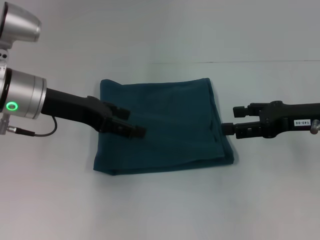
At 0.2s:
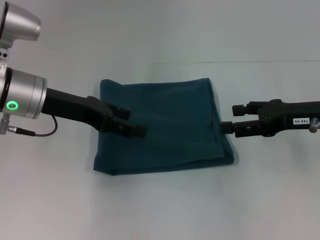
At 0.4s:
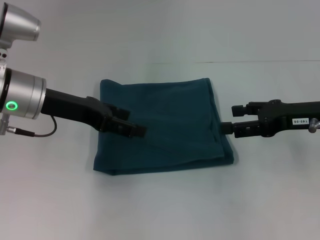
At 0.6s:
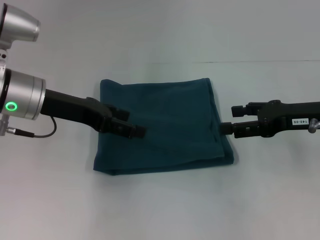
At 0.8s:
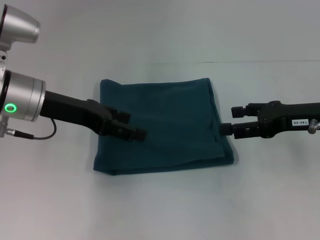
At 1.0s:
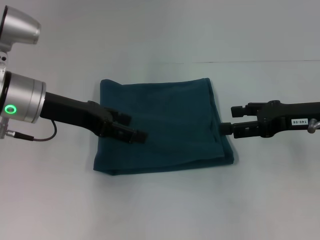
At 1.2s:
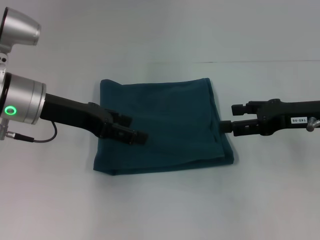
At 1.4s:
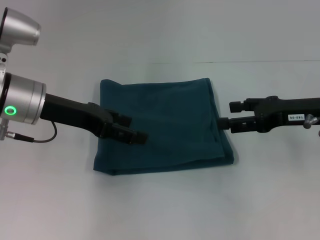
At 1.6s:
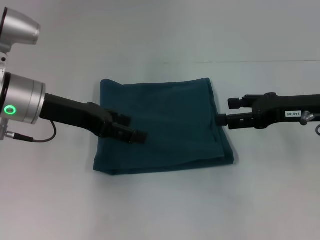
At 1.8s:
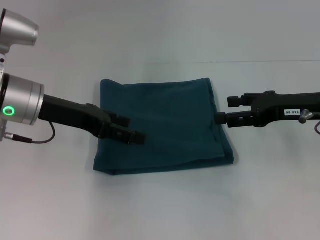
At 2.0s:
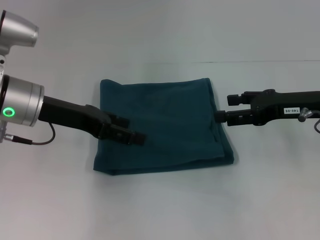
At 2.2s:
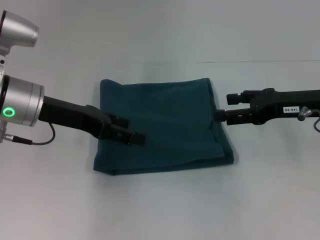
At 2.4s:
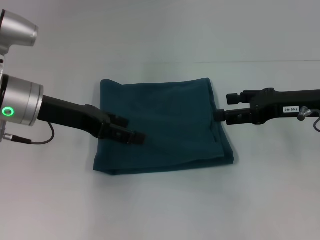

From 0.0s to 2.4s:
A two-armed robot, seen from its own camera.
From 0.0s to 1.2s: The two grippers keep their place.
From 1.2s to 2.4s: The grippers make only small movements.

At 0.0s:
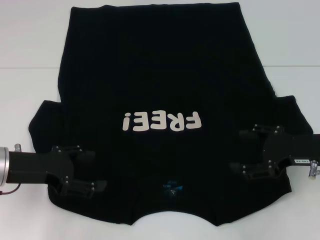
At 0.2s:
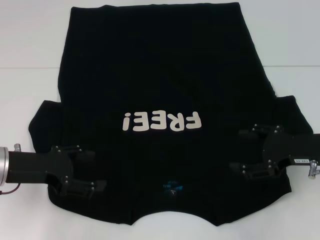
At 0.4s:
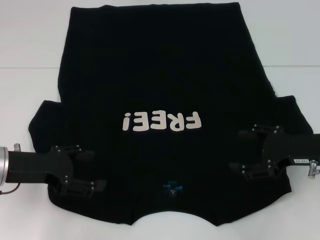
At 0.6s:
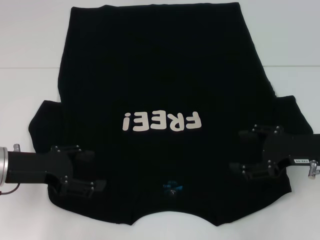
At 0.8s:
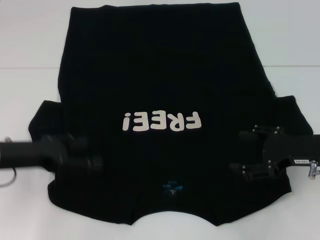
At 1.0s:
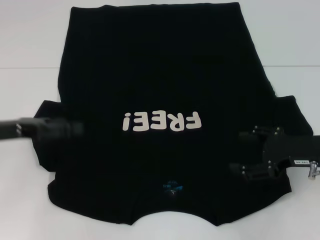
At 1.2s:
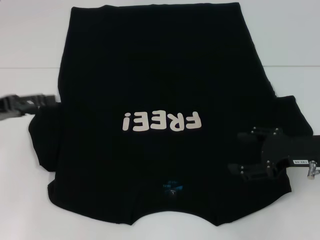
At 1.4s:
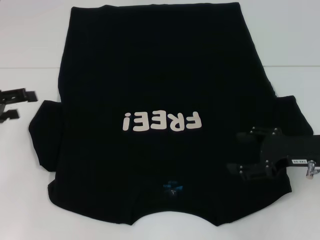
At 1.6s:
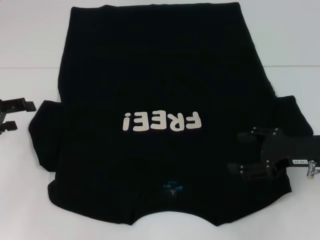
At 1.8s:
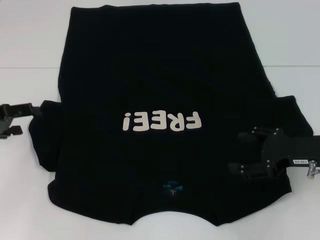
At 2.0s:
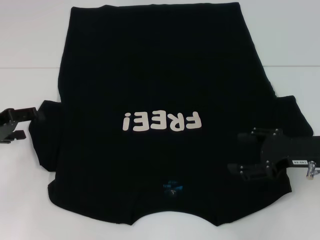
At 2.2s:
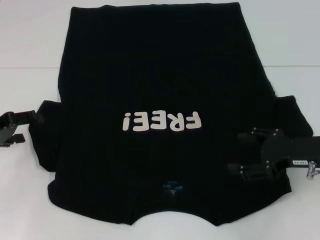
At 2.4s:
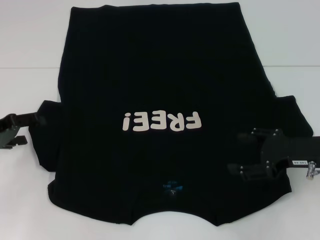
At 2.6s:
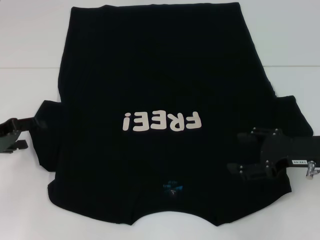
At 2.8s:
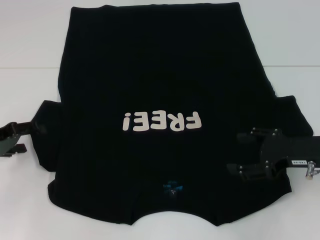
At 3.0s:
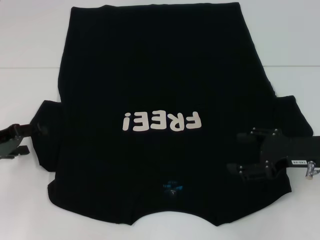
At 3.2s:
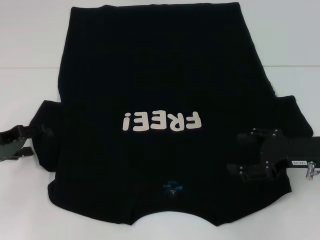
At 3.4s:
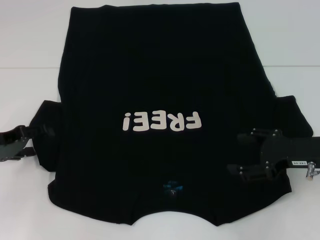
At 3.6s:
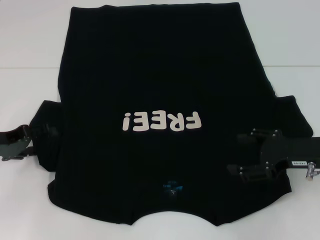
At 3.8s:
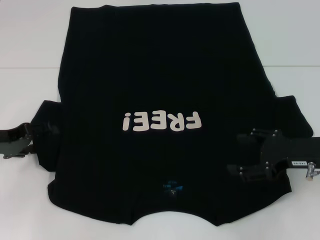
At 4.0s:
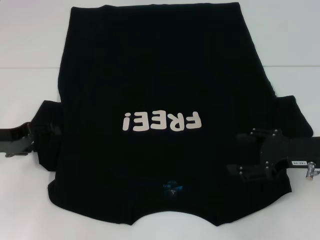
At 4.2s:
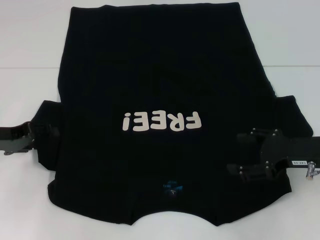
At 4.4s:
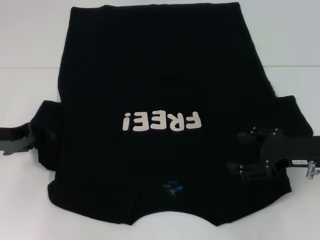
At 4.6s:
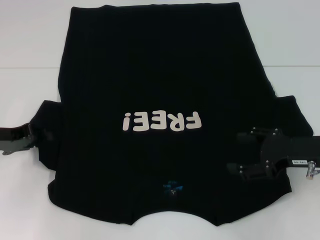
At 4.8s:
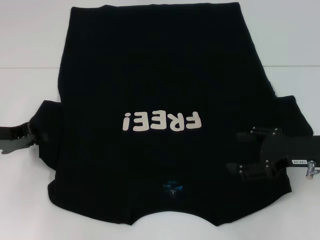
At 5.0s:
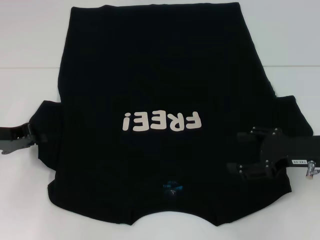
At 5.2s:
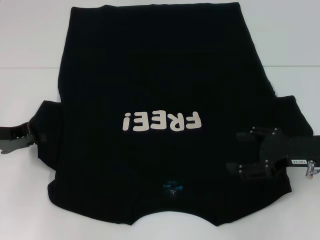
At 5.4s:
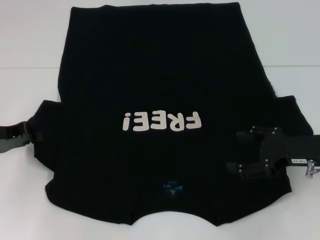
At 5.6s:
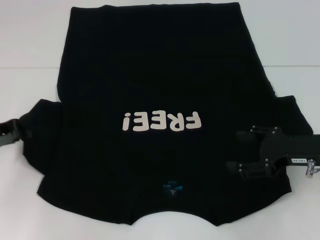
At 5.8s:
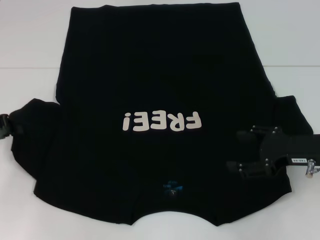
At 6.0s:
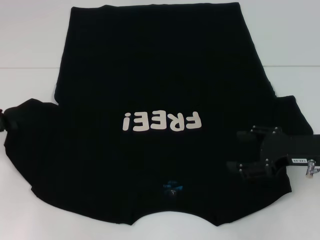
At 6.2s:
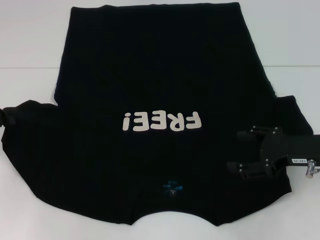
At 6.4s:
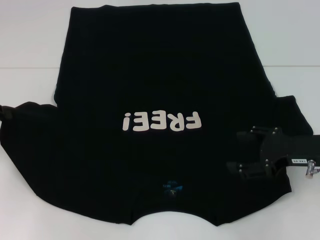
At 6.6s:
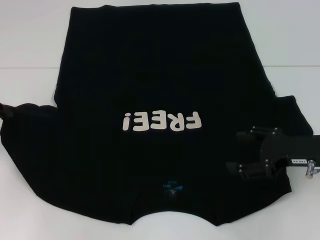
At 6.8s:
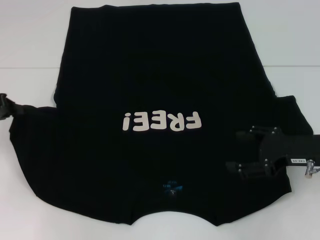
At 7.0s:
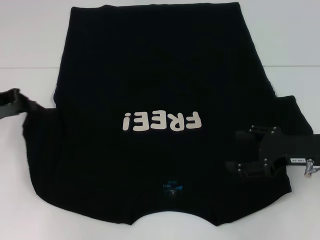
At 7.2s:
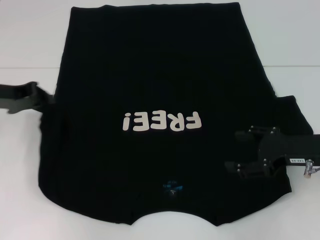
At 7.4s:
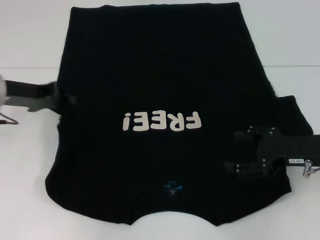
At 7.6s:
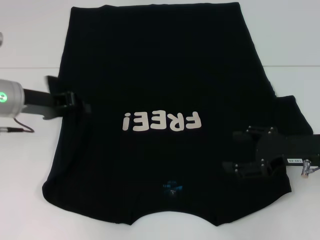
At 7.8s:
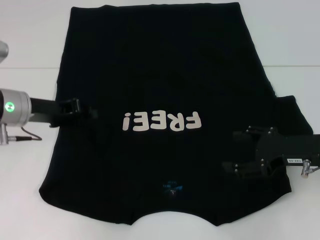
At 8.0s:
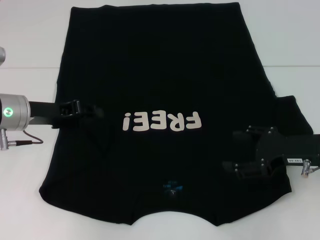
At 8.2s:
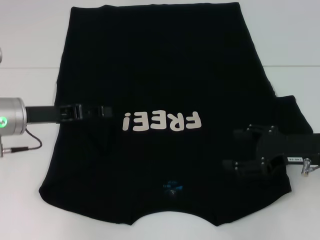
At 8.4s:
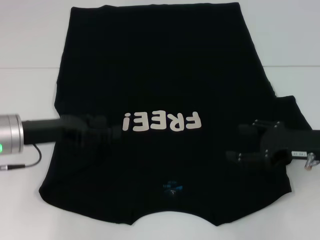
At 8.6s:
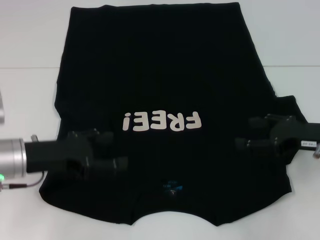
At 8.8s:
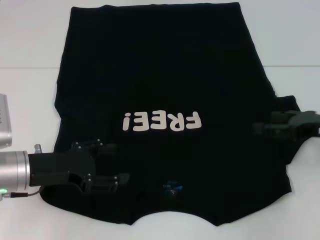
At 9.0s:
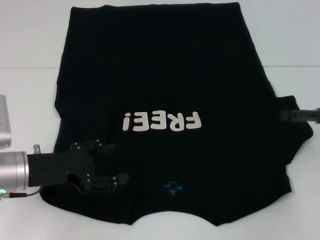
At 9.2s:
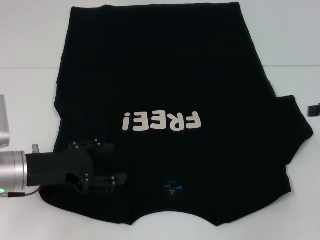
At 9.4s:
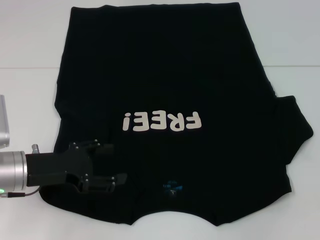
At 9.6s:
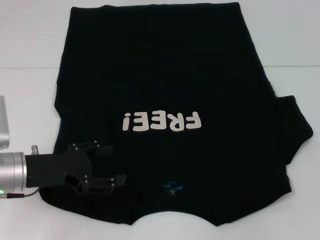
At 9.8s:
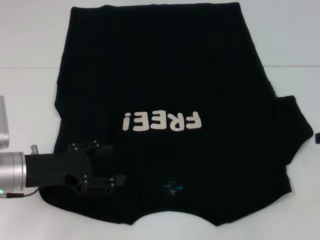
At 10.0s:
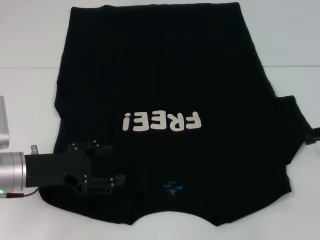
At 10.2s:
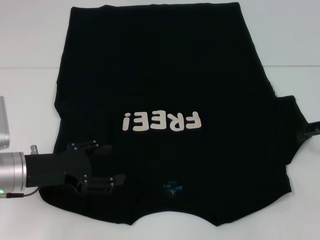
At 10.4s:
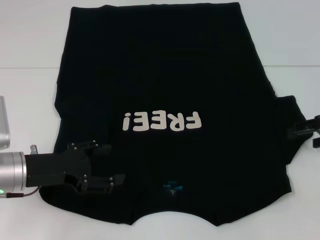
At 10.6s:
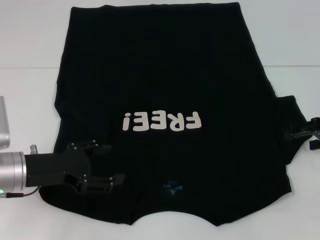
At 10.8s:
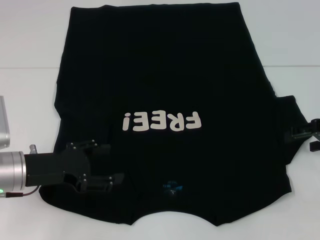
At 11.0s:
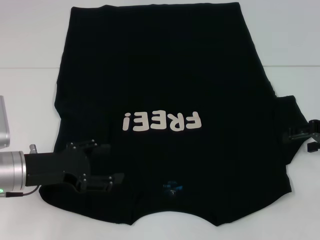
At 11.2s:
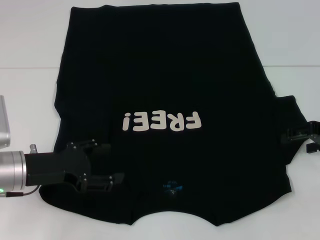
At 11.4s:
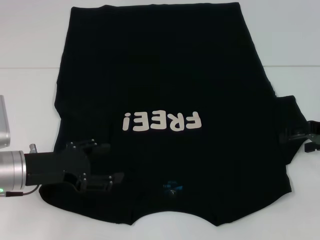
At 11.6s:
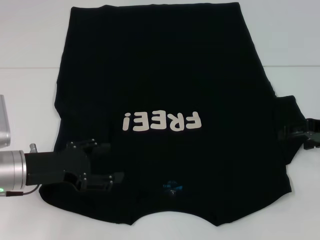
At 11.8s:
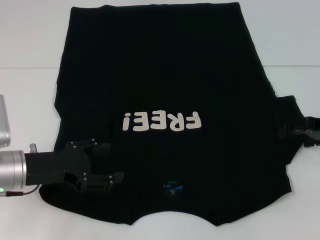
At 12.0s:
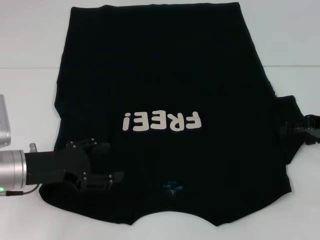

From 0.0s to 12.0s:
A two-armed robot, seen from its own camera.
Step, from 0.0s to 8.6s: Fold the bottom left sleeve with your left hand.
From 0.0s to 1.6s: The left gripper heads to the left, covering approximately 10 cm.
From 1.6s to 4.4s: The grippers move only a little.
From 4.4s to 6.0s: The left gripper closes.
From 6.0s to 7.6s: The left gripper heads to the right, covering about 10 cm.
From 7.6s to 9.0s: The left gripper moves backward and downward, some 10 cm, and opens up; the right gripper goes some 10 cm to the right.
From 10.4s to 12.0s: The grippers make only small movements.

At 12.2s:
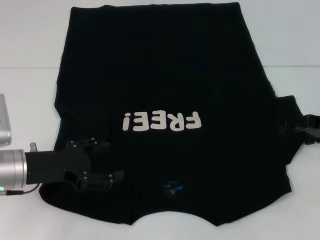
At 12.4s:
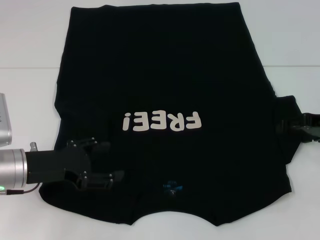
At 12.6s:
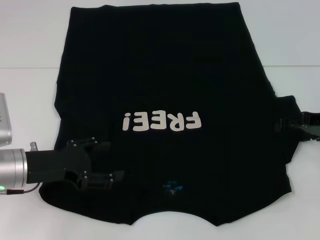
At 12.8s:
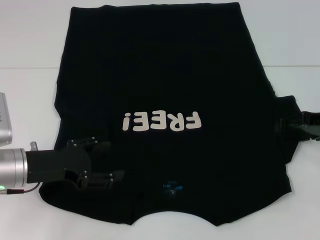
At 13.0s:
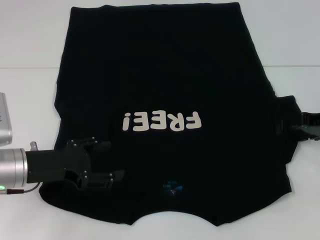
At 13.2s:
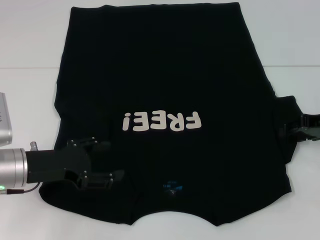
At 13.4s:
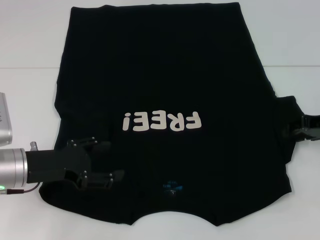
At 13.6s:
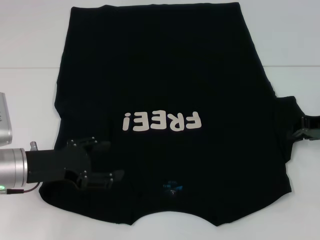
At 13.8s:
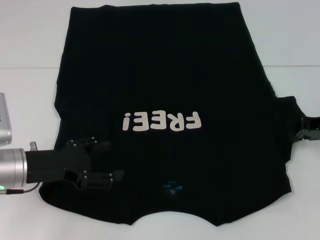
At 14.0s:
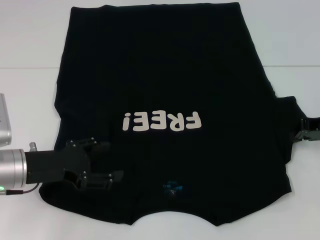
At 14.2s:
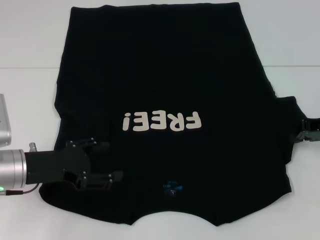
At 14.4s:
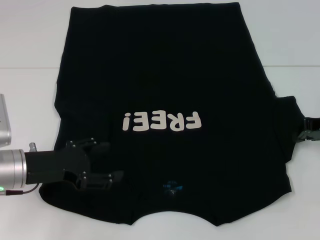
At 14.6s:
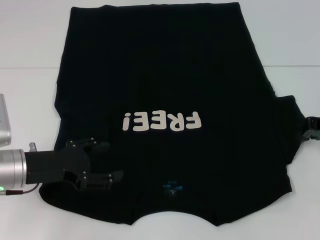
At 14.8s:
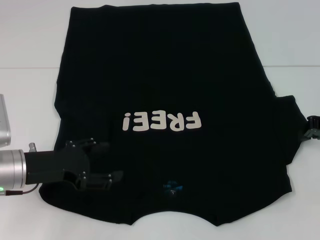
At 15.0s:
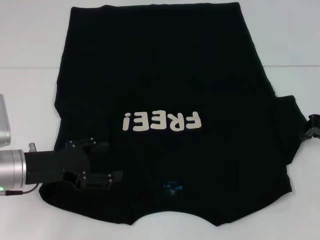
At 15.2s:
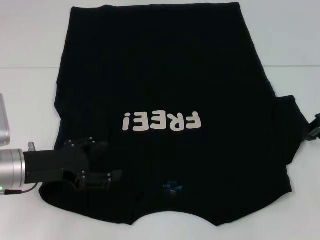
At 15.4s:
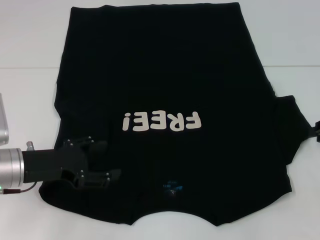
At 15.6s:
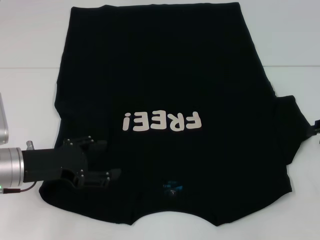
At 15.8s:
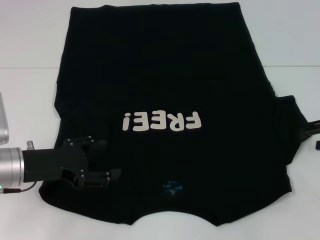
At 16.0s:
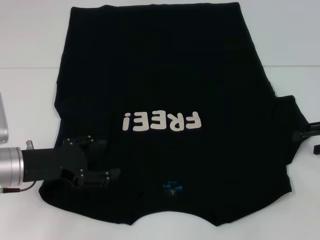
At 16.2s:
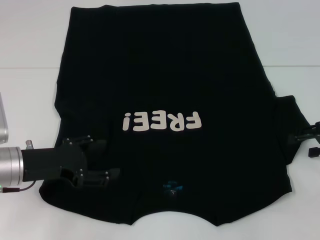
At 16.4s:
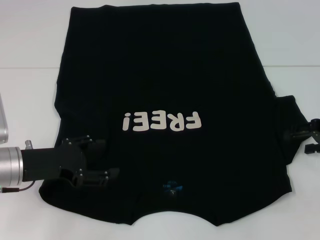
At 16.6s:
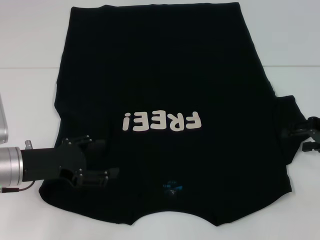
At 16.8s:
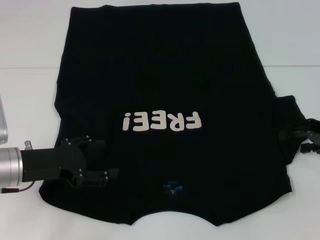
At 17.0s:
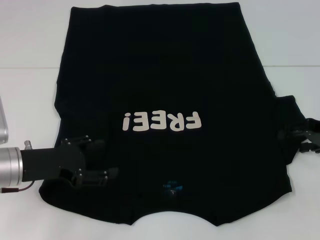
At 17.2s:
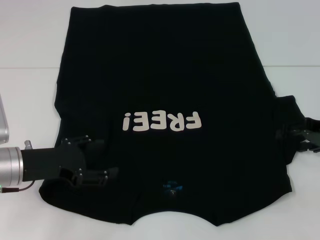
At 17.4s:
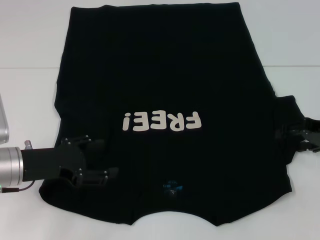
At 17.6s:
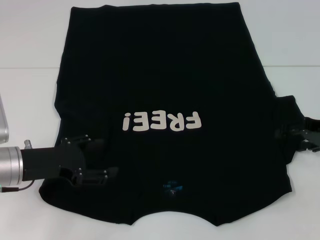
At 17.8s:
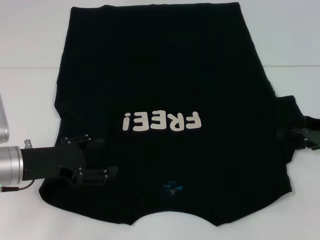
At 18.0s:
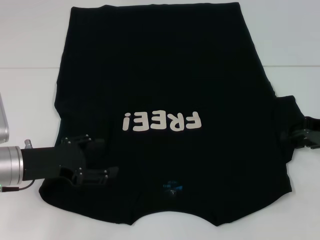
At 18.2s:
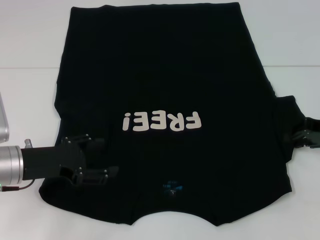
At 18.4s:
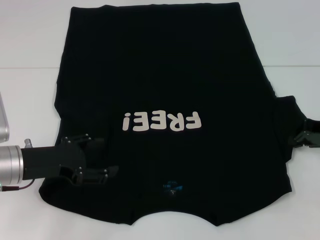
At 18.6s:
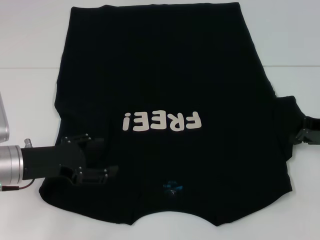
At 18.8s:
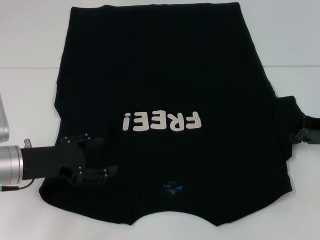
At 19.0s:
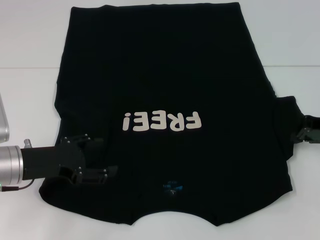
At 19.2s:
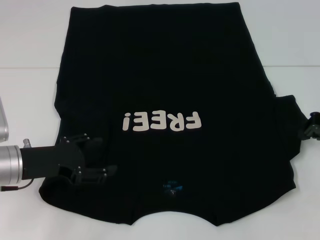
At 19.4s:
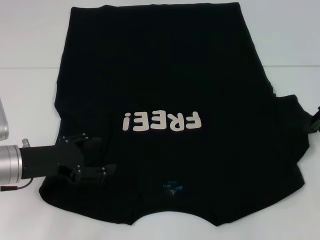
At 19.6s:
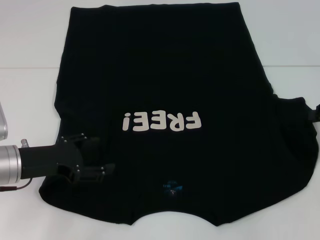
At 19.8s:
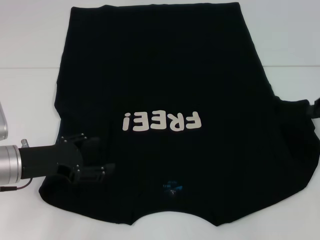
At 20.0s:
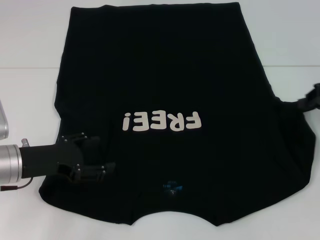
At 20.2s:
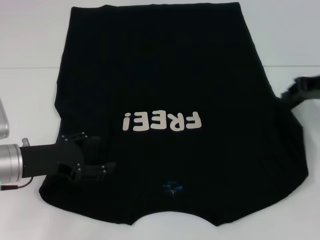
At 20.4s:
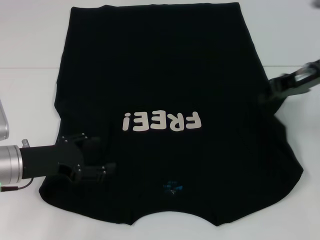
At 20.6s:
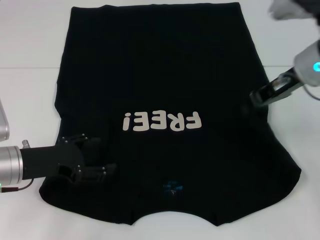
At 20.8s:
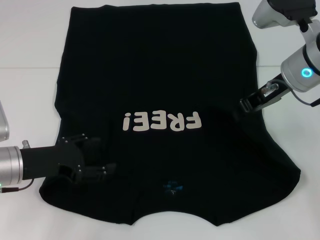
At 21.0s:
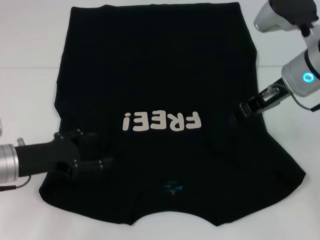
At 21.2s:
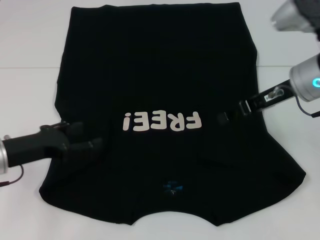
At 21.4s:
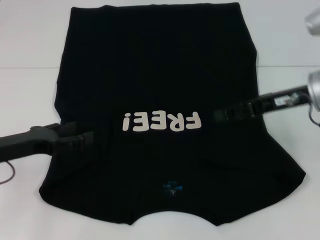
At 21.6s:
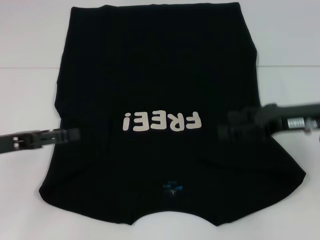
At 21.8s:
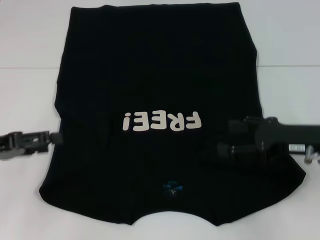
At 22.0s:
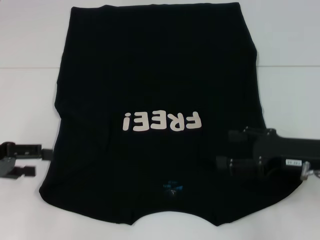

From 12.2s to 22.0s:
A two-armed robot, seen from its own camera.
From 12.2s to 13.6s: The right gripper closes its fingers.
From 13.6s to 15.0s: There are only small adjustments of the grippers.
From 16.4s to 17.8s: The grippers make only small movements.
From 17.8s to 19.2s: The right gripper closes.
From 19.2s to 20.6s: The right gripper goes some 15 cm to the left and upward.
From 20.6s to 22.0s: The left gripper shifts approximately 10 cm to the left and upward; the right gripper moves backward, downward and to the right, approximately 15 cm, and opens its fingers.
